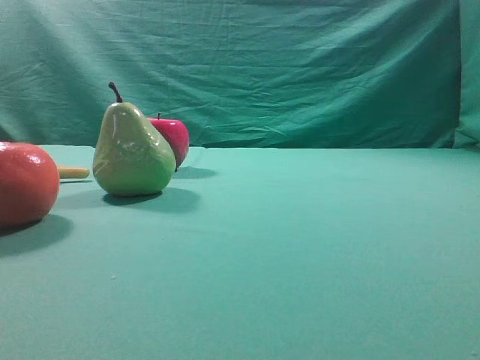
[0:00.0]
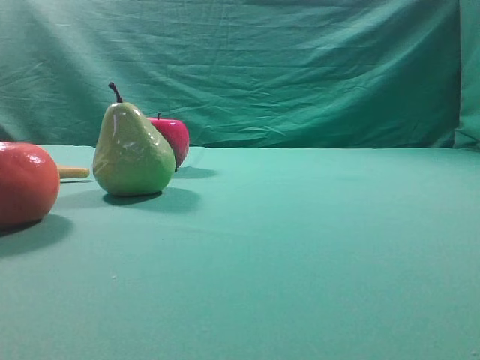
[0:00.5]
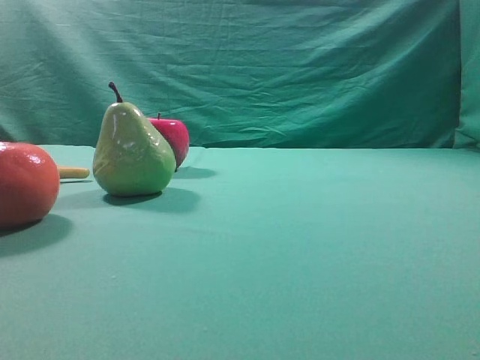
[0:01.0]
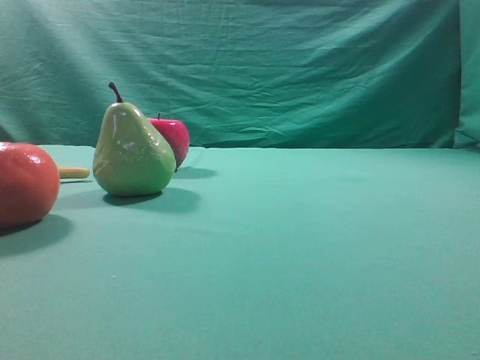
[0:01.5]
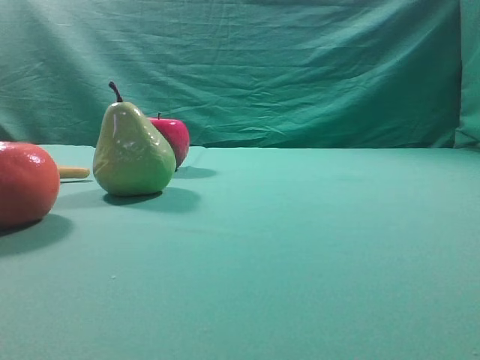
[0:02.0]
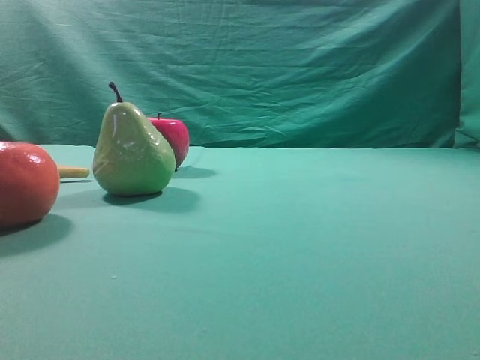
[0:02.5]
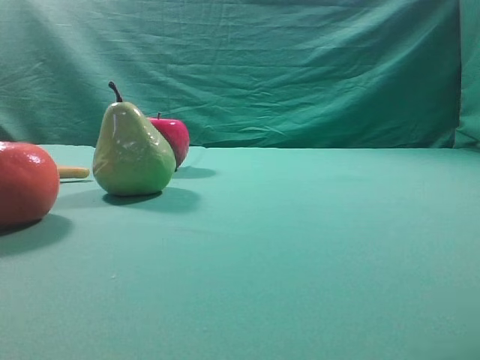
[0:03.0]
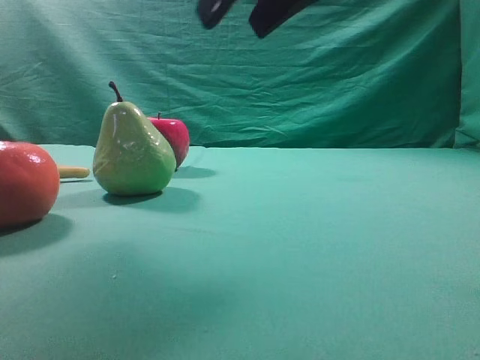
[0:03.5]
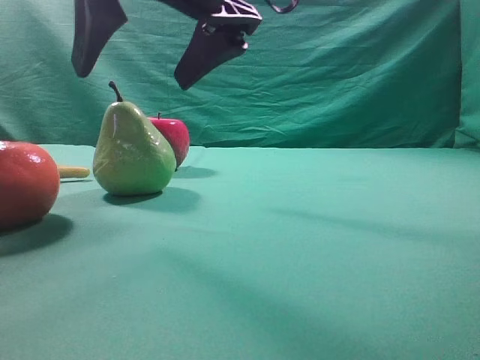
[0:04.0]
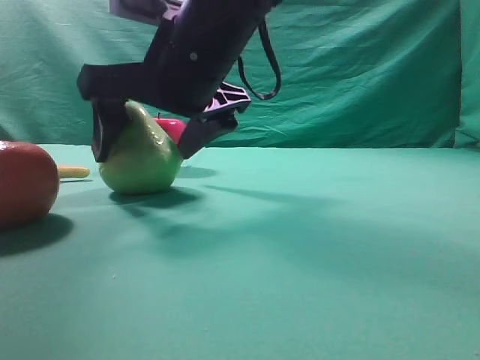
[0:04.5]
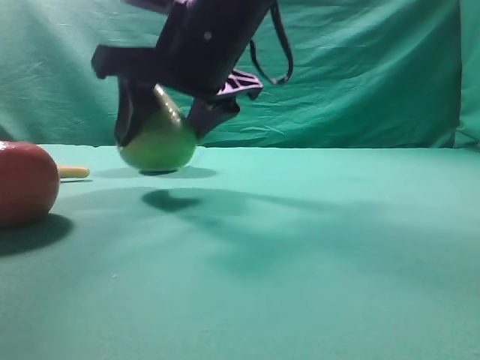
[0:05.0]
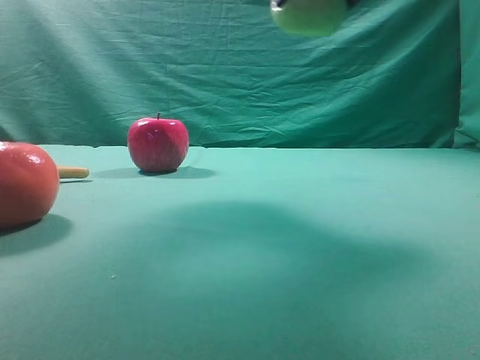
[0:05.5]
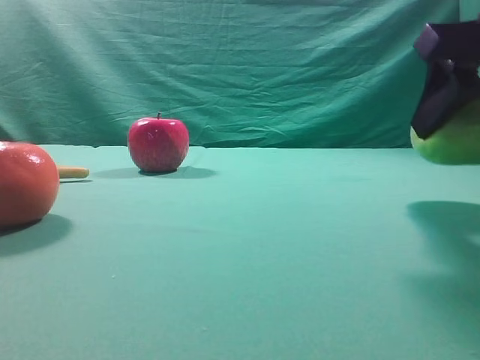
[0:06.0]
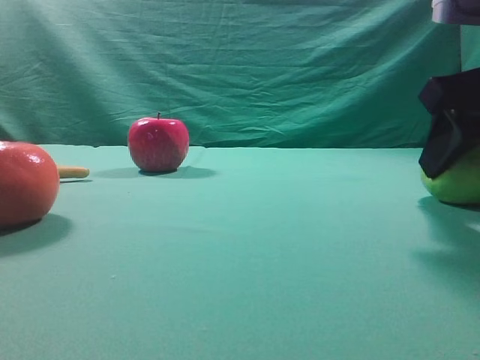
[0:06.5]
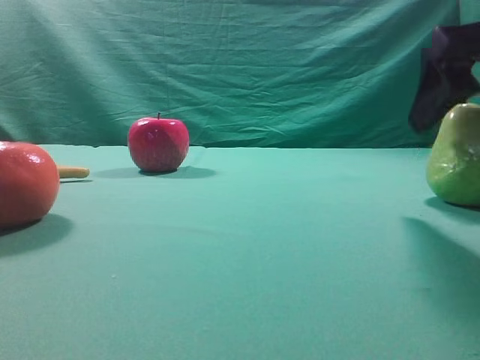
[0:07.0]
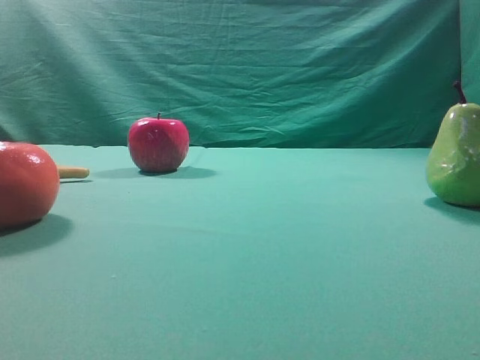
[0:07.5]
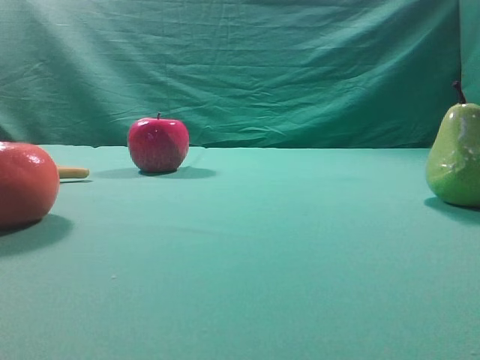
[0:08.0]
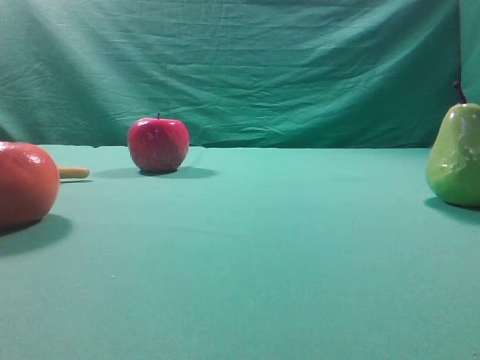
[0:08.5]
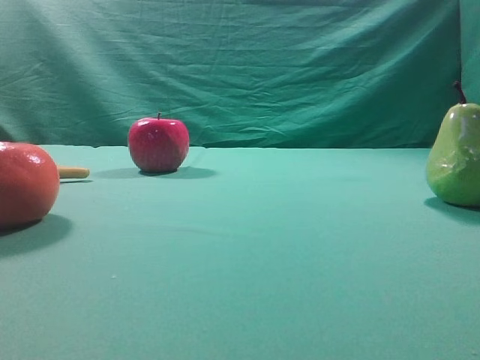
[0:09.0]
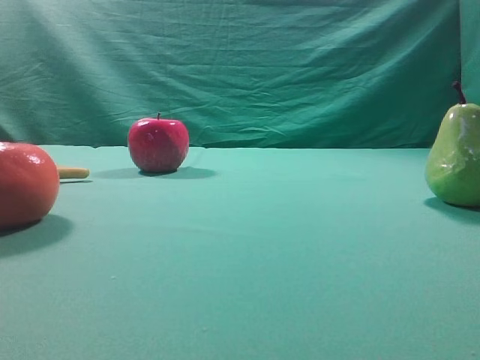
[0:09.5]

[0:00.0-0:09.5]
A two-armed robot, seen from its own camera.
Task of the whole recording: Grasp the pear and place it on one side of the table.
Step, 0:00.0 to 0:05.0: Grasp the high-fiber fruit.
Step, 0:05.5 to 0:07.0: Place it on the right side of the table.
